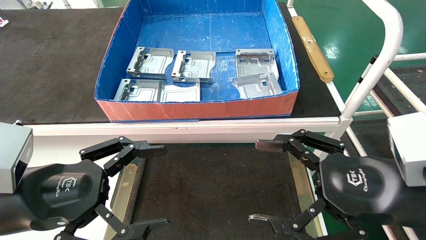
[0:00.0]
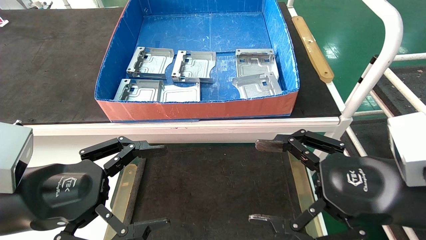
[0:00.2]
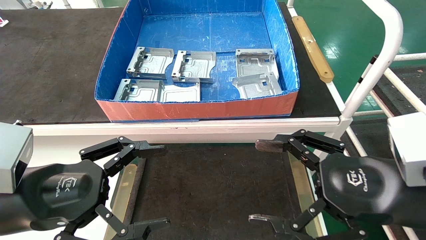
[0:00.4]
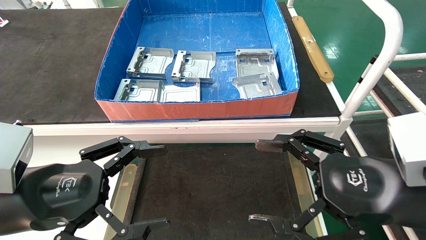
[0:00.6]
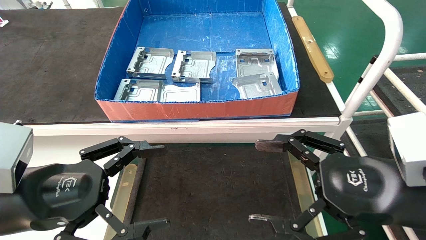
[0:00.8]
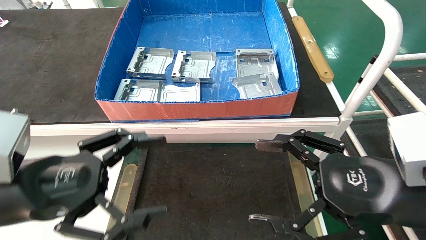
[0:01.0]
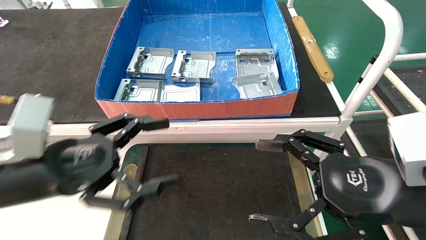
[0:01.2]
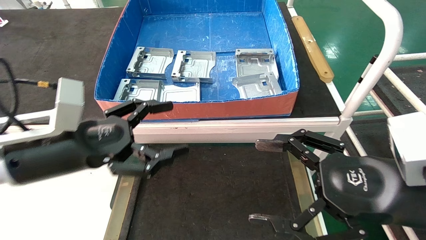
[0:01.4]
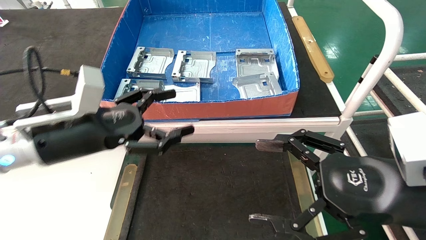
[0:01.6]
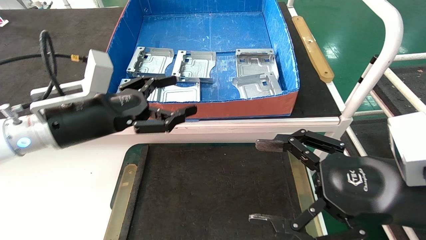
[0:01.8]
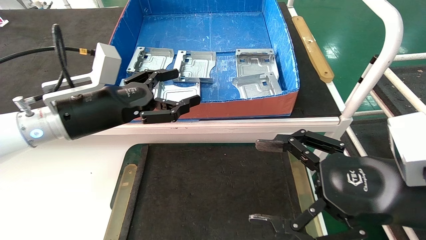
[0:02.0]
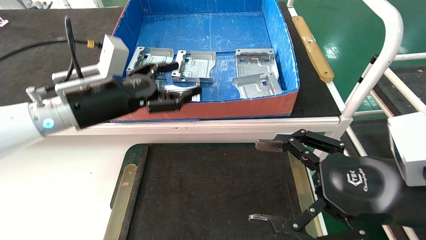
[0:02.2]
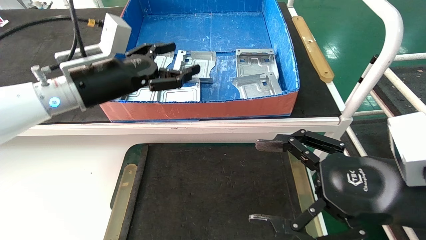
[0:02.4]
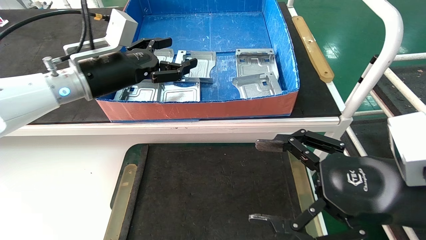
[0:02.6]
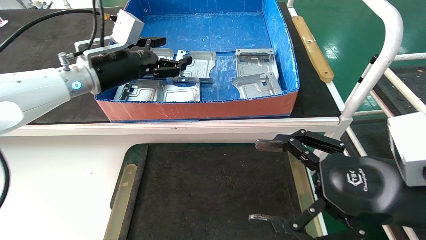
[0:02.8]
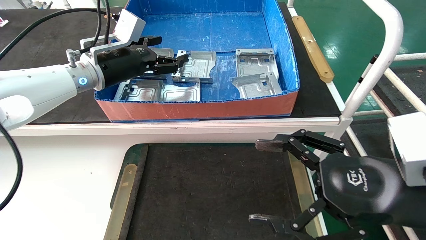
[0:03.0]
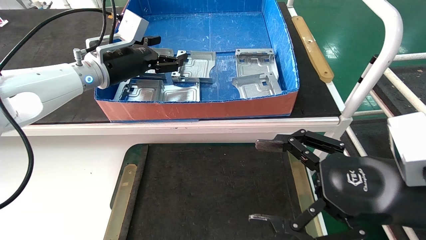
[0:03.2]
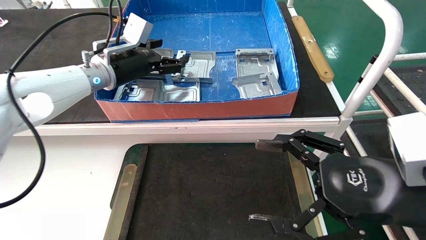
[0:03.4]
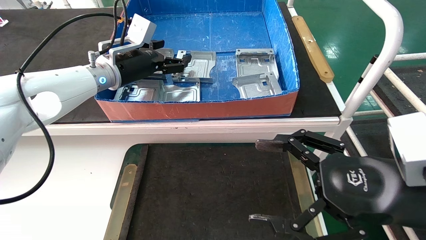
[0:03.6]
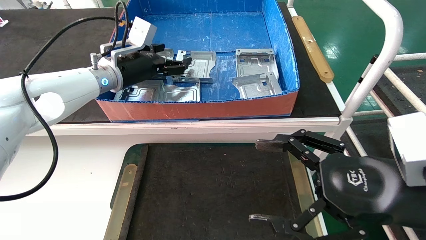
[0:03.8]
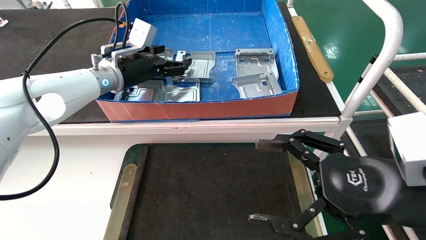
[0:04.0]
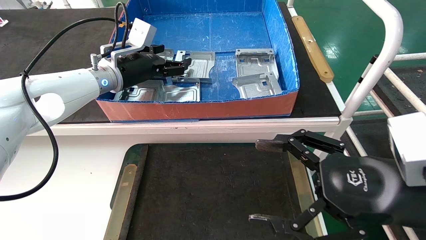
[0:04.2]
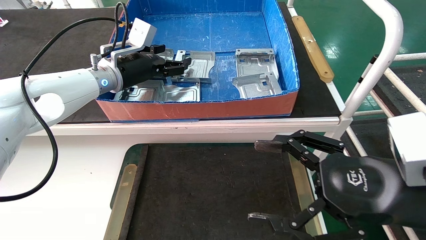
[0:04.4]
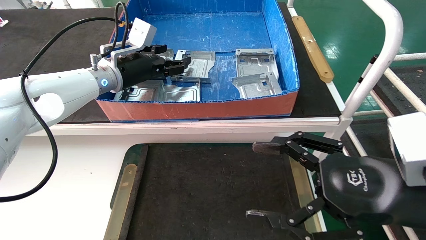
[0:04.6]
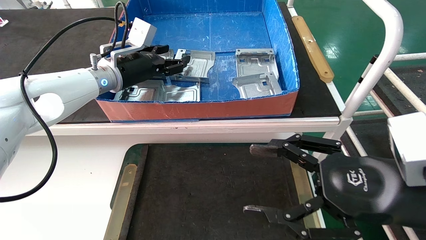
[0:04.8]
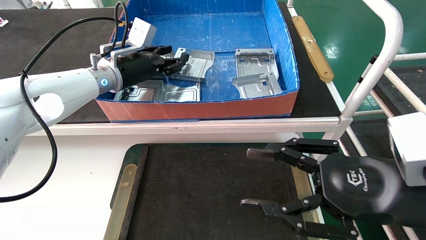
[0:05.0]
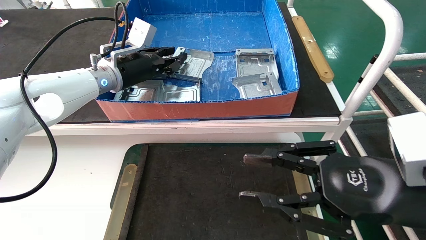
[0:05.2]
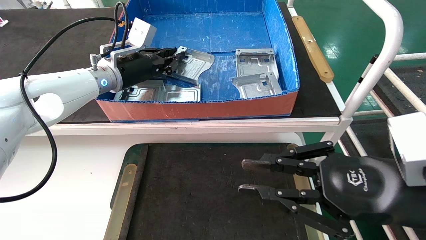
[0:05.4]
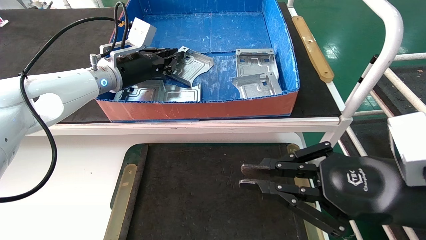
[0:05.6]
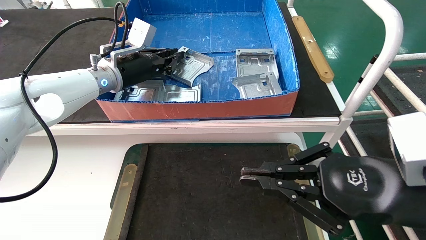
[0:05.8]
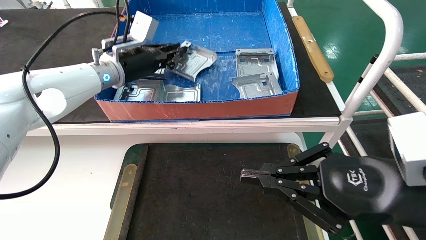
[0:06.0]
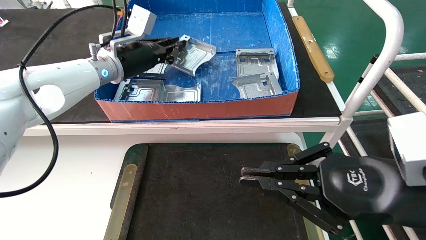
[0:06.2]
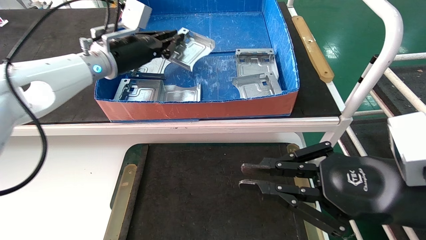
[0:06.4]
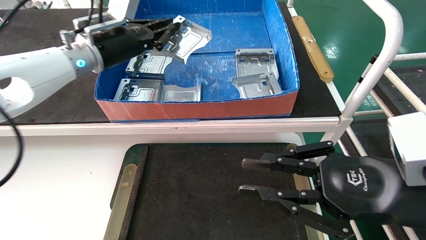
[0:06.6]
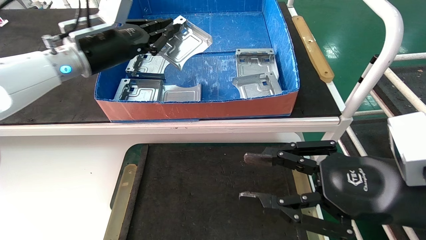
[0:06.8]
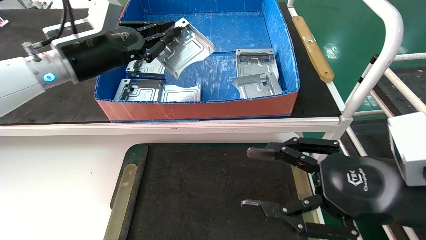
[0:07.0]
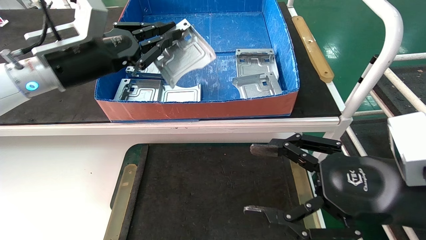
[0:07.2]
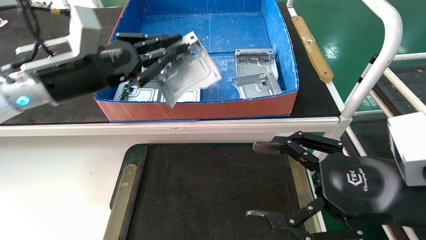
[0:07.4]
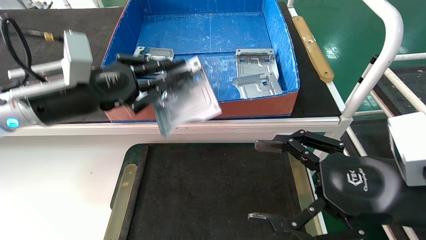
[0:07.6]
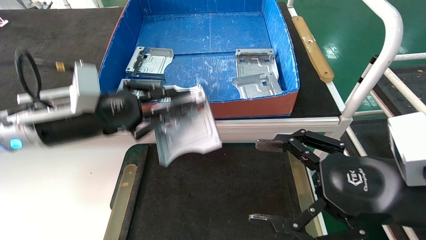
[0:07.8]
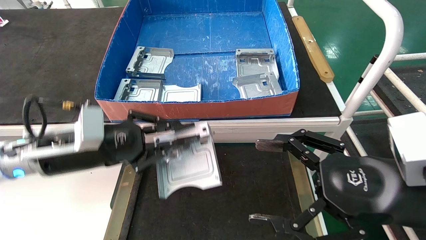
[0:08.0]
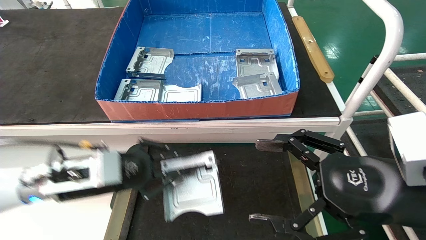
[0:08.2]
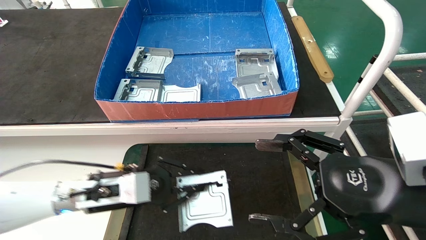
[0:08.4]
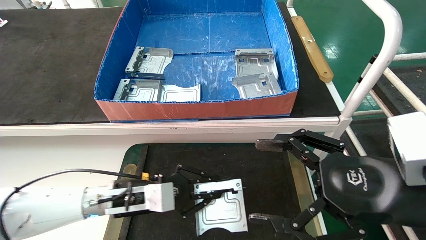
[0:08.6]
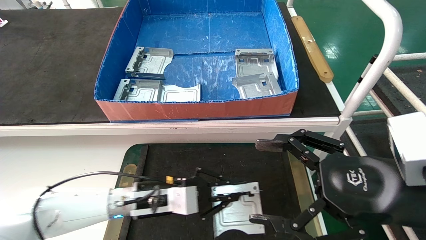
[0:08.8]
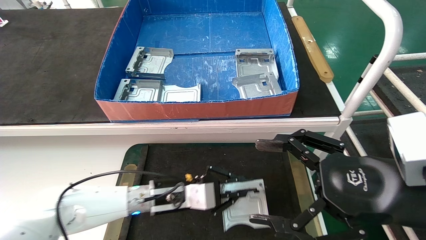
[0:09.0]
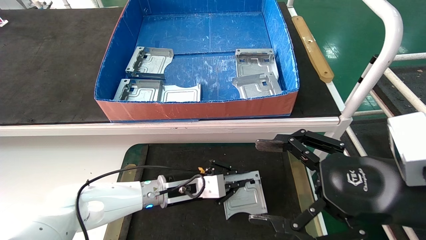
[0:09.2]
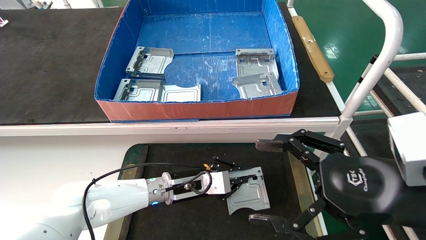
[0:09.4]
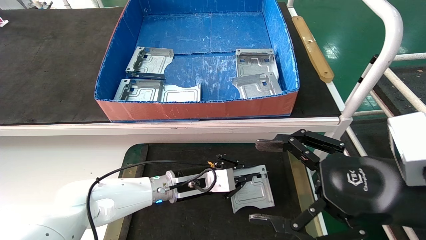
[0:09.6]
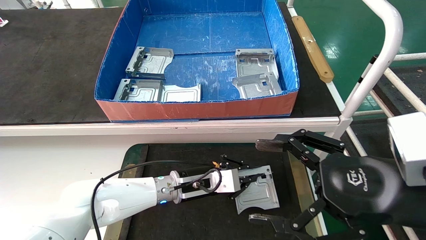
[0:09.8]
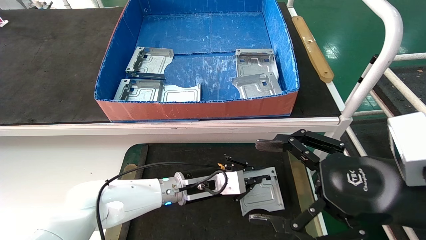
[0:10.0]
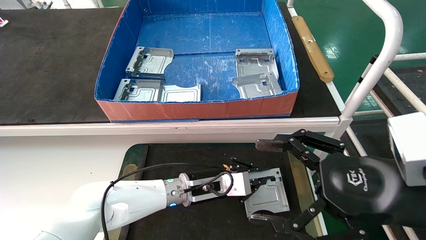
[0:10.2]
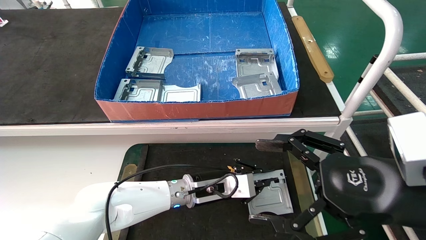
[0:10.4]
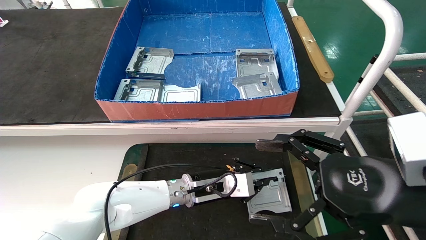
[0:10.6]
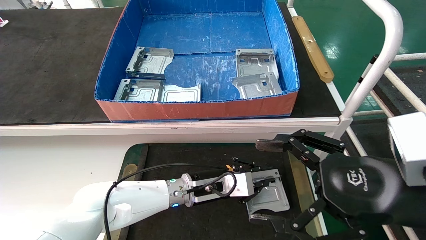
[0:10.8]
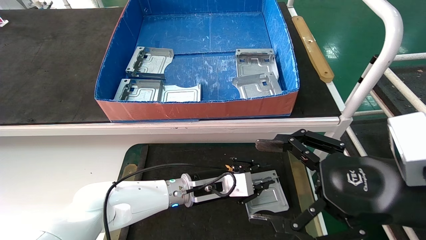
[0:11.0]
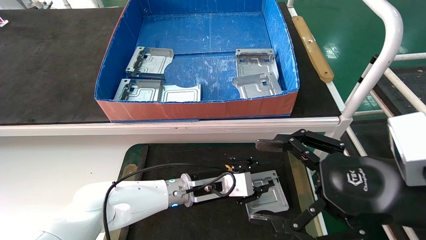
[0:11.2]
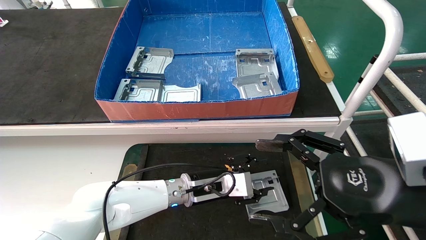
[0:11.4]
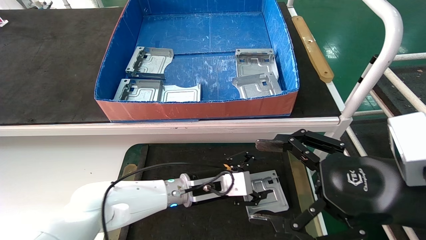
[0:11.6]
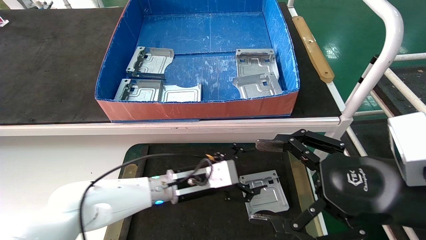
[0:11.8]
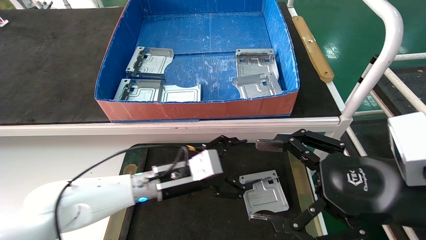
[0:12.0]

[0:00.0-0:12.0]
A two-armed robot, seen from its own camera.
Task of the whole recording: take the accessories out of the box and place them on the table.
Step, 0:01.4 to 0:05.6: Pick up the hard drive bracket from the feeding area.
Step, 0:05.8 to 0:11.2: Place the hard drive bracket into the box.
0:00.0 to 0:01.6: The left gripper moves forward, approximately 10 cm.
0:01.6 to 0:03.0: The left gripper shifts approximately 15 cm forward and upward.
0:03.0 to 0:04.4: There are only small adjustments of the grippers.
0:04.4 to 0:06.0: The right gripper closes up. Meanwhile the left gripper closes up.
0:06.0 to 0:07.6: The left gripper is displaced backward by about 15 cm. Meanwhile the right gripper opens its fingers.
0:07.6 to 0:09.0: The left gripper goes roughly 25 cm downward and to the right.
0:09.0 to 0:10.4: The left gripper heads to the right, covering roughly 10 cm.
0:10.4 to 0:12.0: The left gripper travels to the left by about 5 cm, and opens its fingers.
